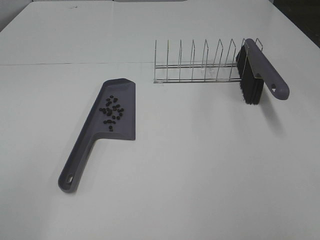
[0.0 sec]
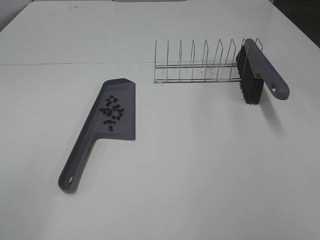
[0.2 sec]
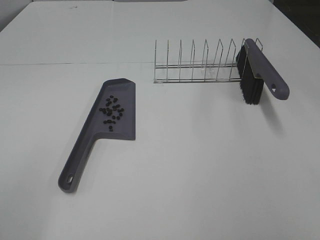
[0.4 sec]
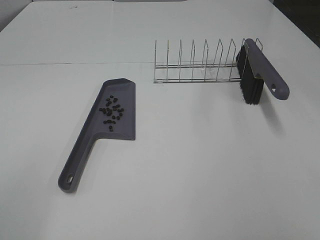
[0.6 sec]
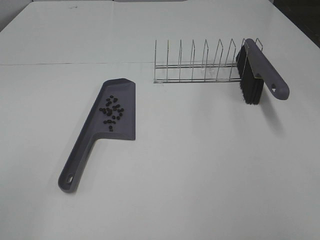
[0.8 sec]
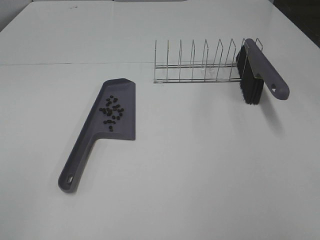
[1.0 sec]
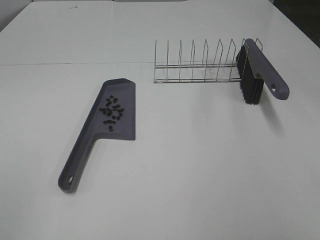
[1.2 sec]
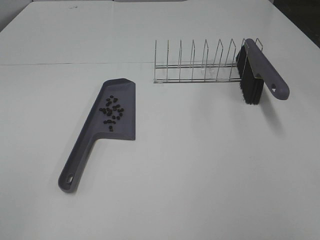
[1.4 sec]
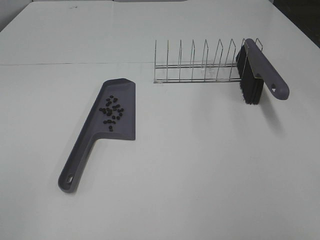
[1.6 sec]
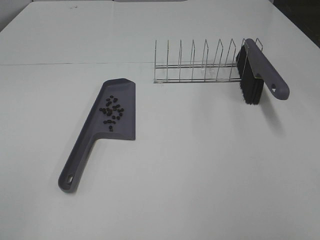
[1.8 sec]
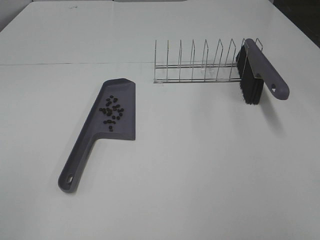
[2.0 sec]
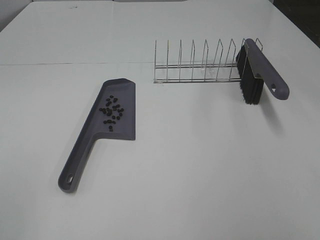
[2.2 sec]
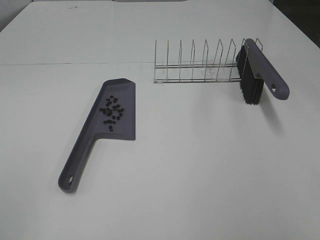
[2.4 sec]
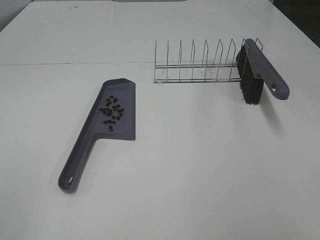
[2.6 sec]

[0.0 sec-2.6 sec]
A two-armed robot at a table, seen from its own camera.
Task of the whole recording: Sweep Coffee Bean.
1.2 sec to 2.6 sec: Both grippers stay put.
